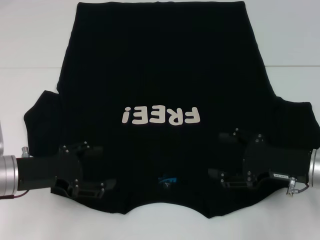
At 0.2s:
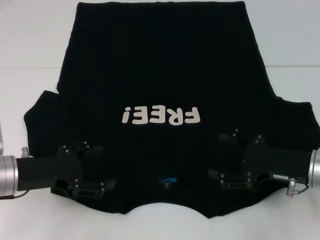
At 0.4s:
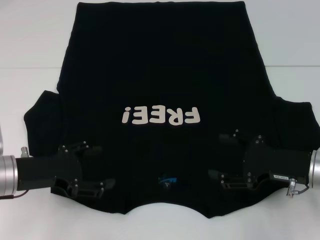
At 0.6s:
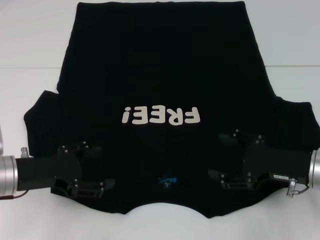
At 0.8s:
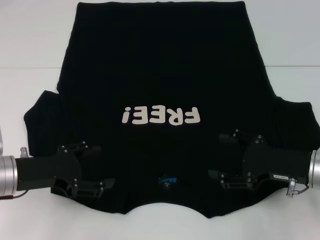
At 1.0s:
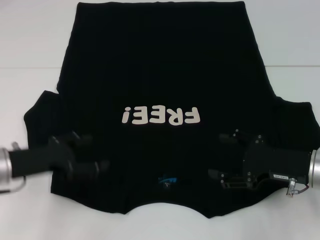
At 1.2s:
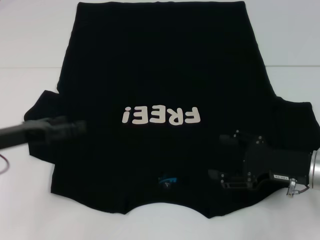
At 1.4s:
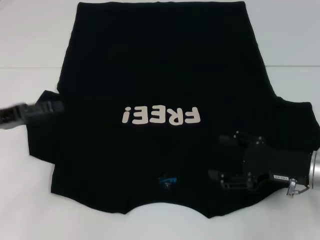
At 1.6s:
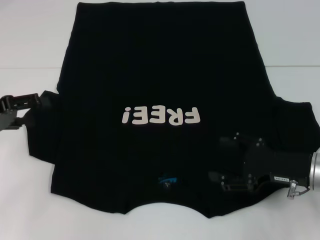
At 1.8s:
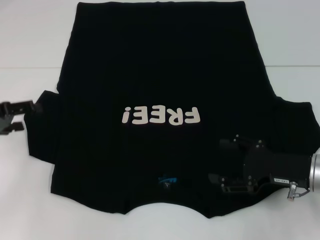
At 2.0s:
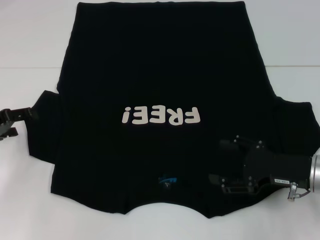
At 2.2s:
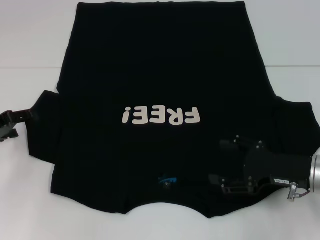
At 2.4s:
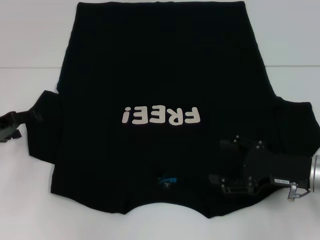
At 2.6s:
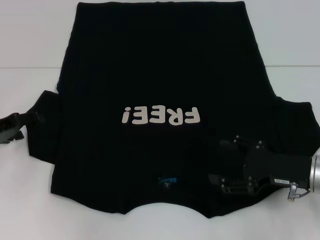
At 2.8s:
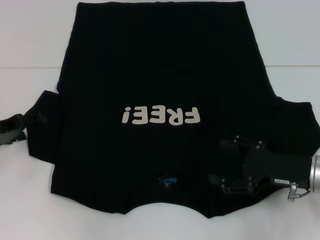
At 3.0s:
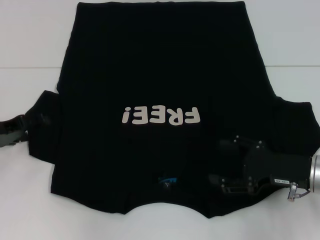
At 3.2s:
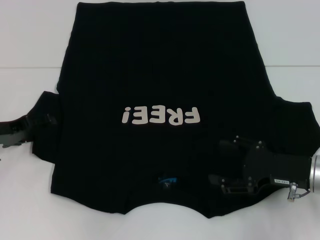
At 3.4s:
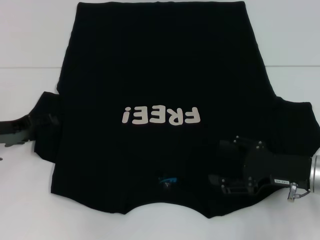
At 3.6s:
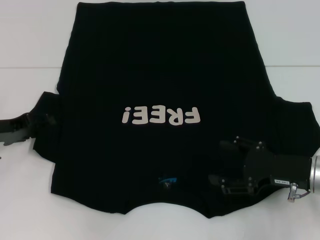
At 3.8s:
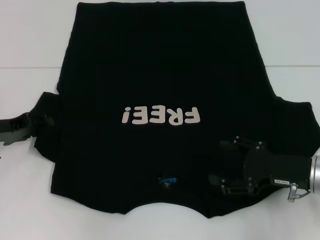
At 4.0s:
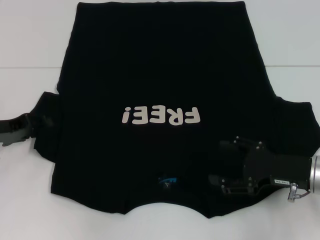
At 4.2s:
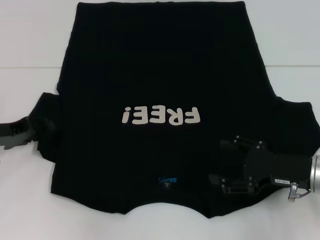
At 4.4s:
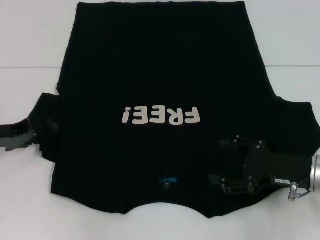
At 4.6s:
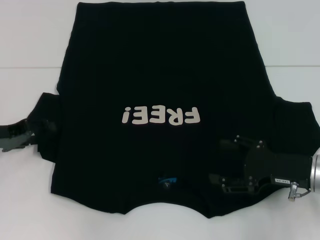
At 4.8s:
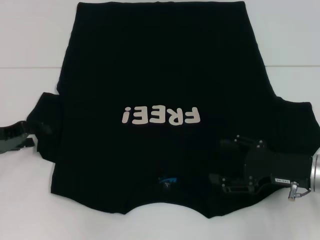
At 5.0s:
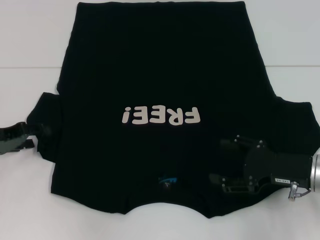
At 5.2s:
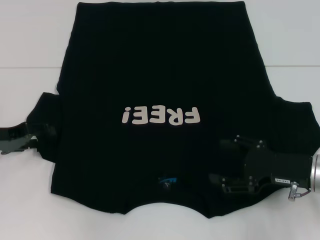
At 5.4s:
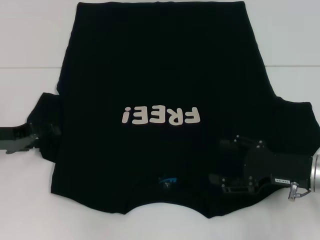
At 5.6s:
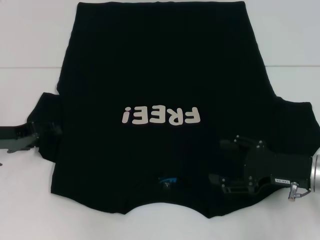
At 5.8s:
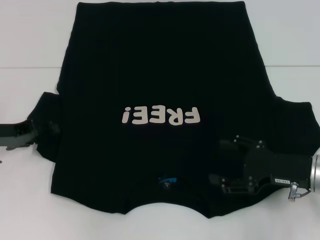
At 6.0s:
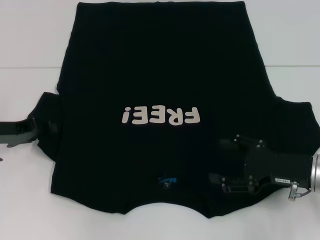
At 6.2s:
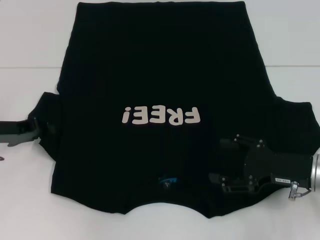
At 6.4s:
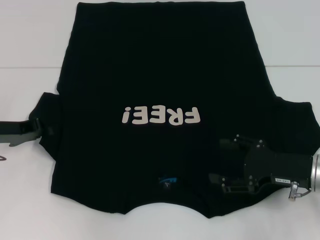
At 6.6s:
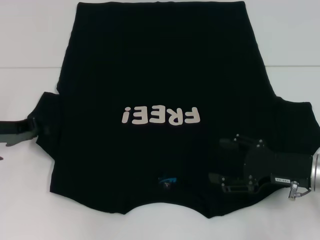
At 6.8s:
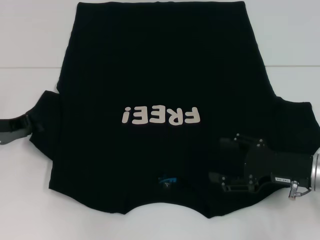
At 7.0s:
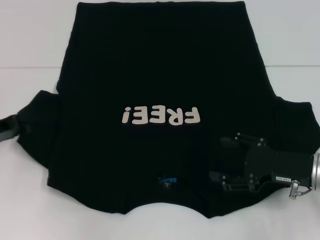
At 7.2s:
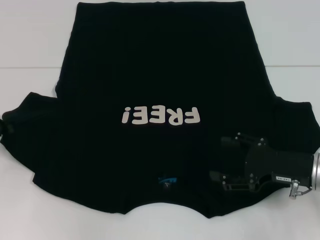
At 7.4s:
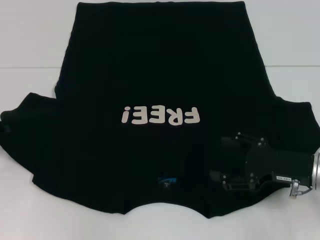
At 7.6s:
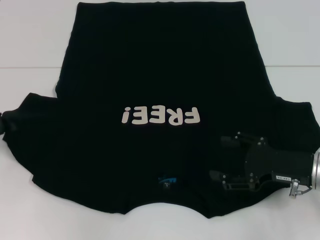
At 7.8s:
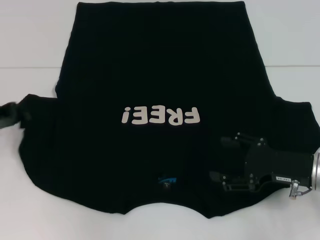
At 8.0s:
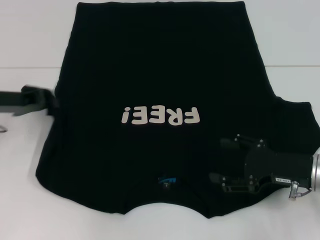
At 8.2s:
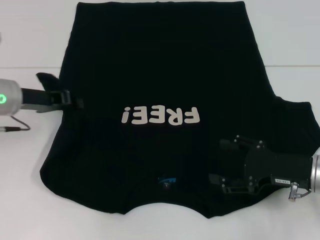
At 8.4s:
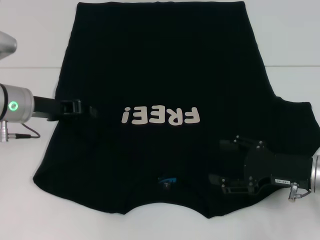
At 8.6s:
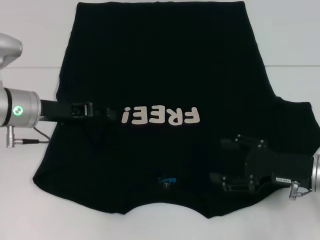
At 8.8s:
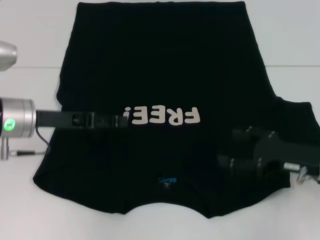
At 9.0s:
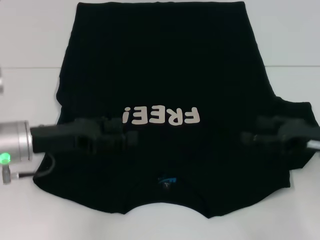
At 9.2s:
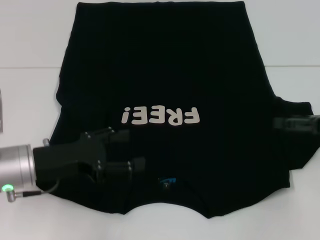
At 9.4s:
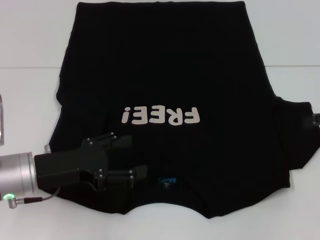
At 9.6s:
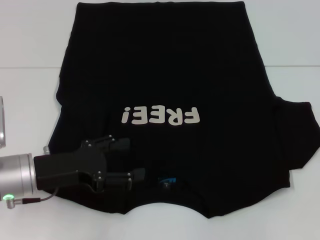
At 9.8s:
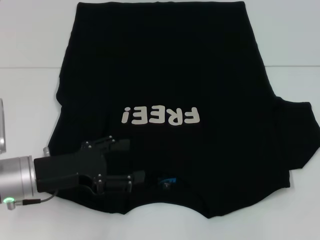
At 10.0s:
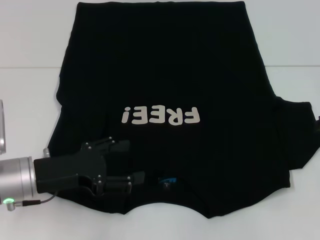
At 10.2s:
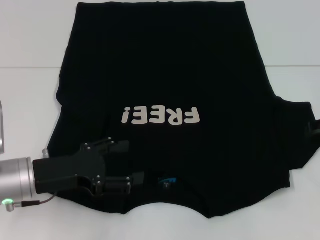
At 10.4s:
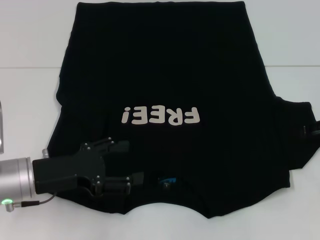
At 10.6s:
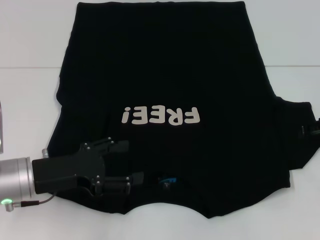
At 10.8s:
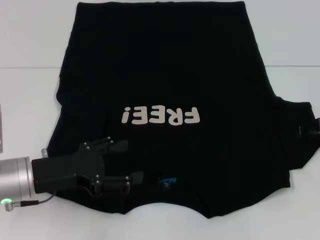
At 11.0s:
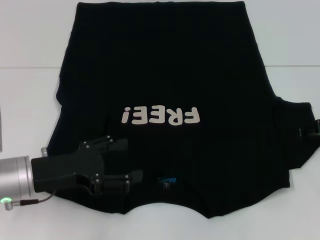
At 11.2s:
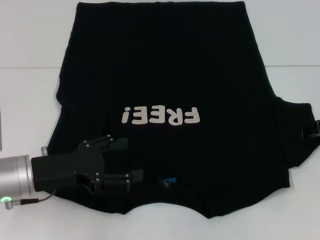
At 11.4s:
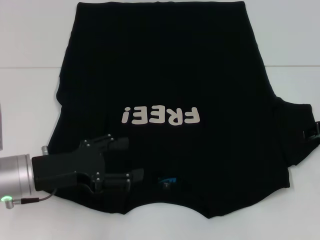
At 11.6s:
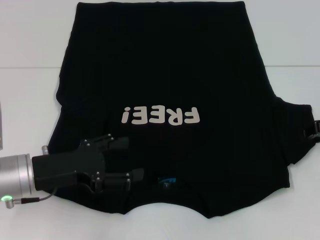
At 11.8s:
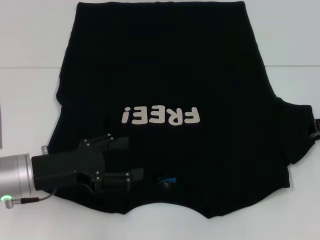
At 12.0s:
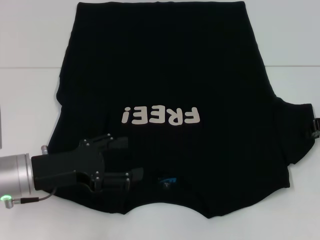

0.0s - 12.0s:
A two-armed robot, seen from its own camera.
Step, 0.0s - 9.4s: Fold the bottom left sleeve with your left hand.
0.0s - 1.6s: The left gripper goes some 10 cm to the left and upward.
1.6s - 3.0s: The left gripper shifts some 5 cm downward.
3.0s - 4.4s: There are only small adjustments of the grippers.
4.4s - 6.0s: Neither gripper changes place.
6.0s - 7.6s: The left gripper closes up.
7.6s - 9.0s: The left gripper travels to the right by about 15 cm, and opens its fingers; the right gripper shifts by some 5 cm.
9.0s - 10.4s: The right gripper is displaced forward by approximately 5 cm. The left gripper changes place by approximately 5 cm.
10.4s - 12.0s: The right gripper closes.

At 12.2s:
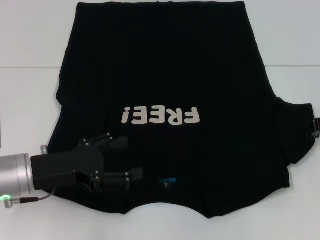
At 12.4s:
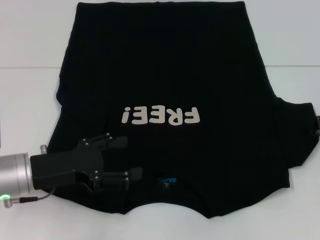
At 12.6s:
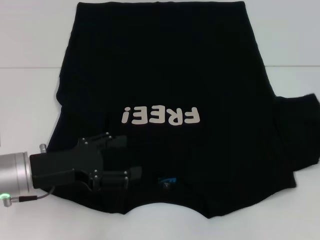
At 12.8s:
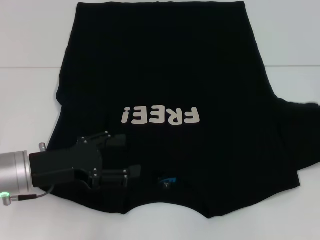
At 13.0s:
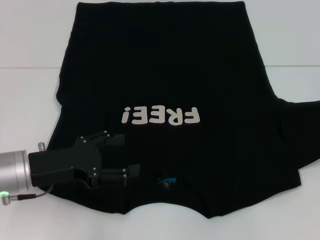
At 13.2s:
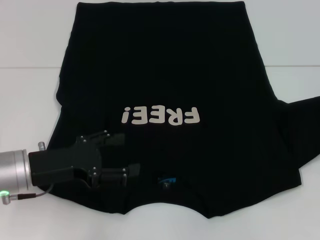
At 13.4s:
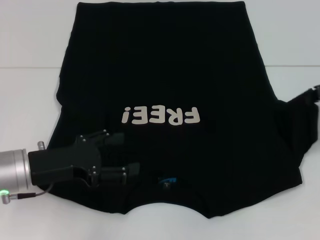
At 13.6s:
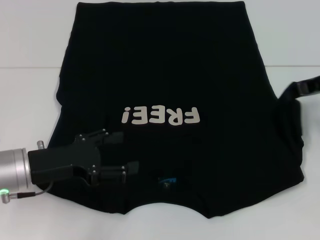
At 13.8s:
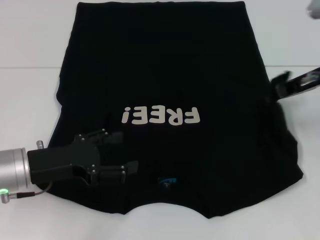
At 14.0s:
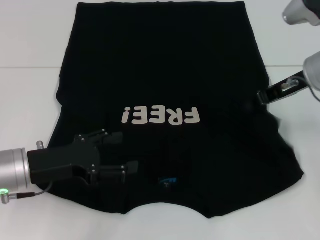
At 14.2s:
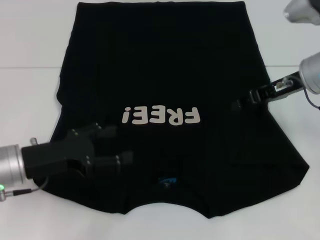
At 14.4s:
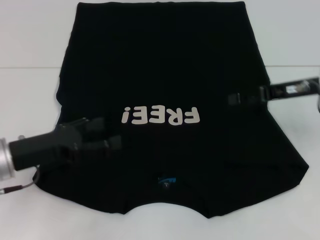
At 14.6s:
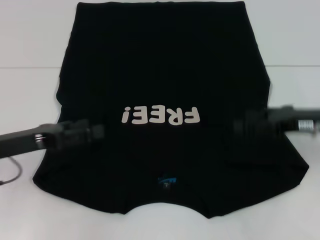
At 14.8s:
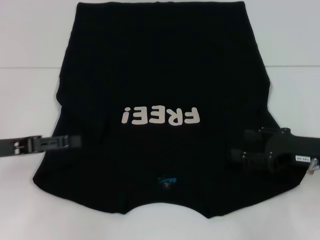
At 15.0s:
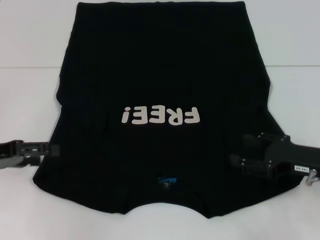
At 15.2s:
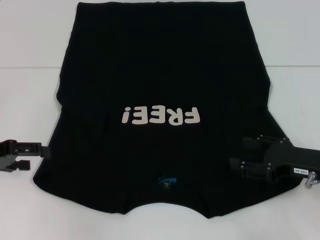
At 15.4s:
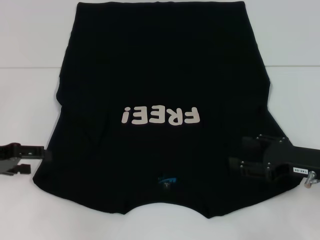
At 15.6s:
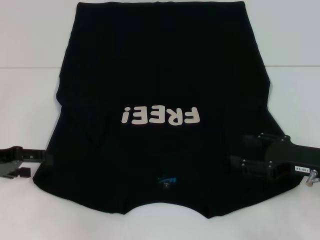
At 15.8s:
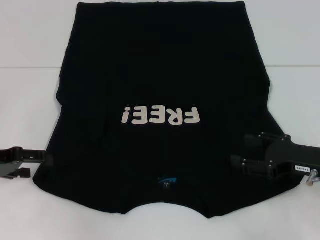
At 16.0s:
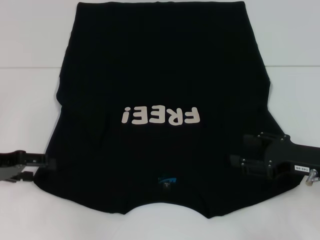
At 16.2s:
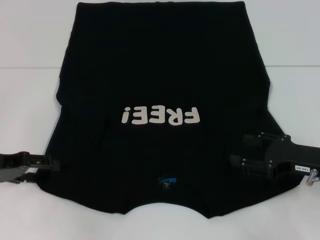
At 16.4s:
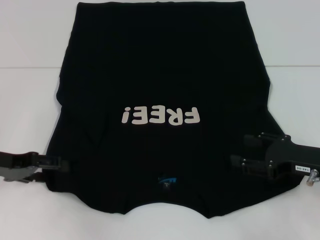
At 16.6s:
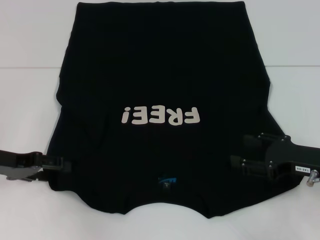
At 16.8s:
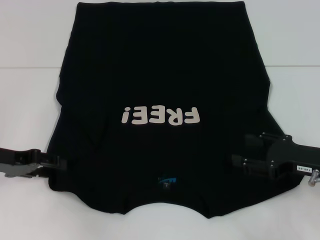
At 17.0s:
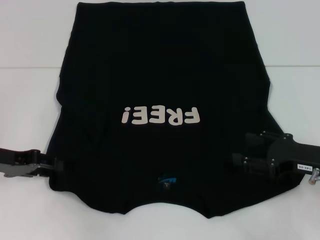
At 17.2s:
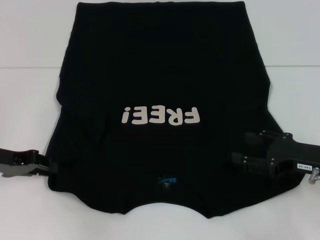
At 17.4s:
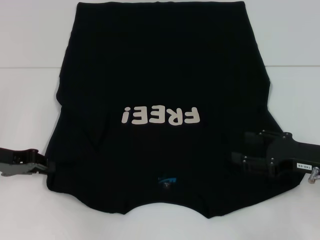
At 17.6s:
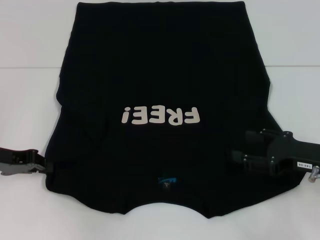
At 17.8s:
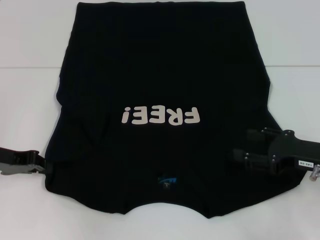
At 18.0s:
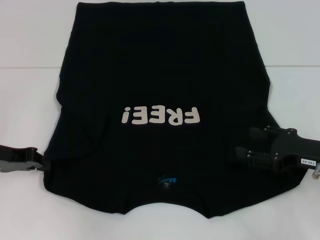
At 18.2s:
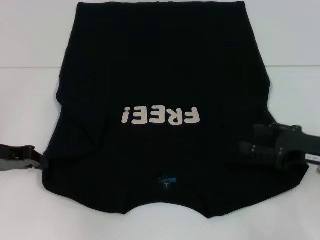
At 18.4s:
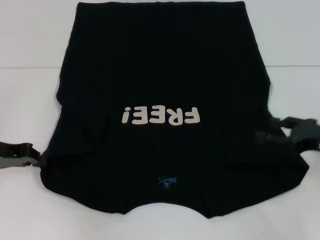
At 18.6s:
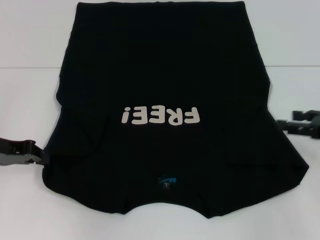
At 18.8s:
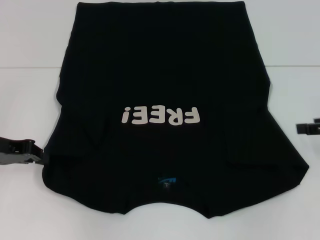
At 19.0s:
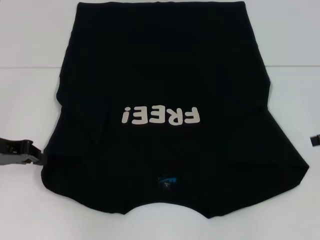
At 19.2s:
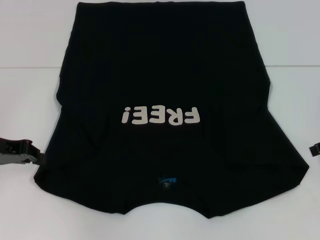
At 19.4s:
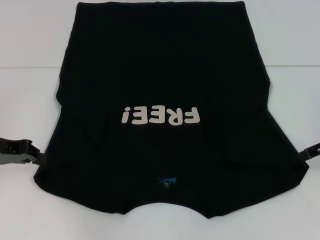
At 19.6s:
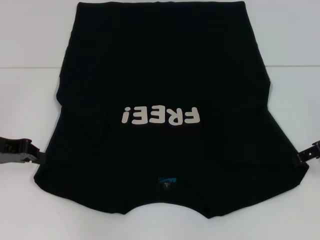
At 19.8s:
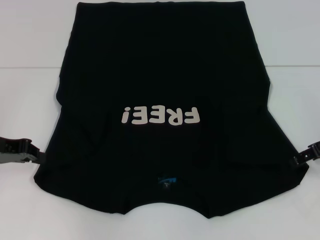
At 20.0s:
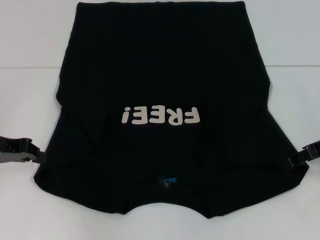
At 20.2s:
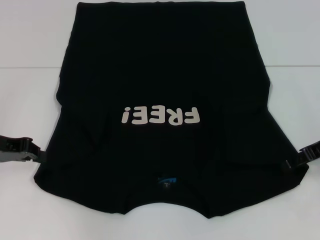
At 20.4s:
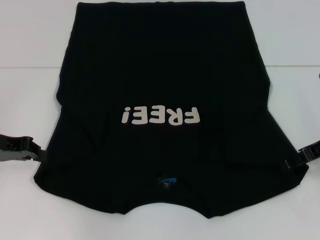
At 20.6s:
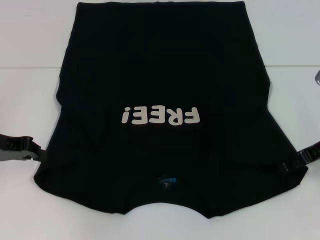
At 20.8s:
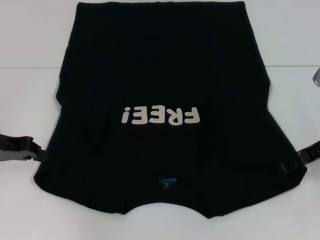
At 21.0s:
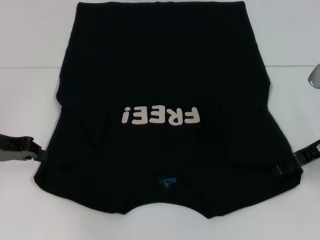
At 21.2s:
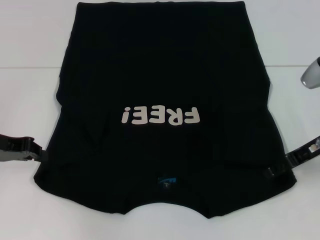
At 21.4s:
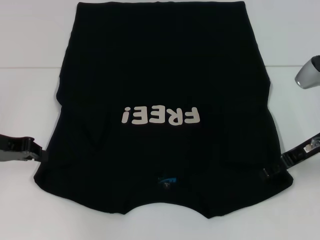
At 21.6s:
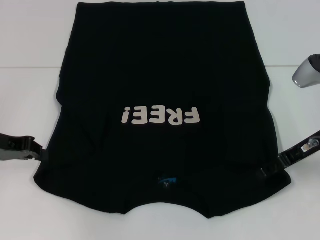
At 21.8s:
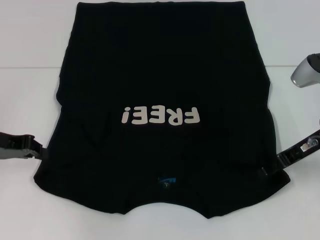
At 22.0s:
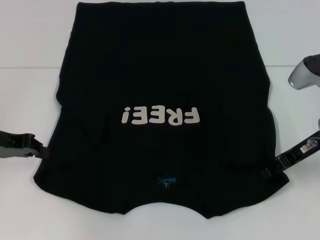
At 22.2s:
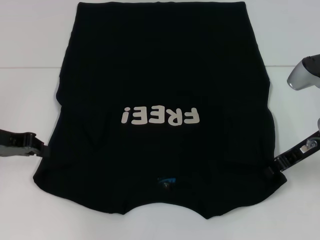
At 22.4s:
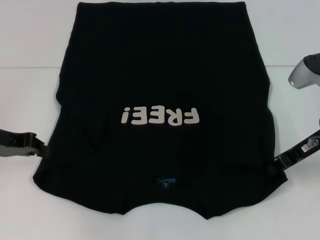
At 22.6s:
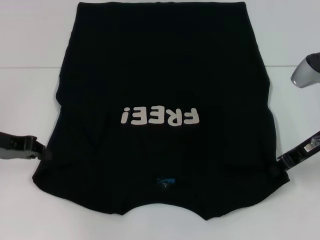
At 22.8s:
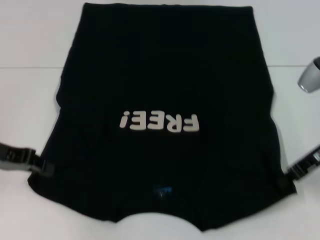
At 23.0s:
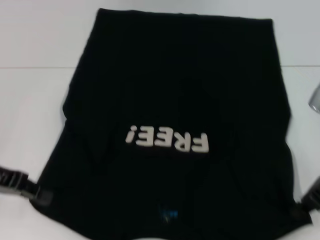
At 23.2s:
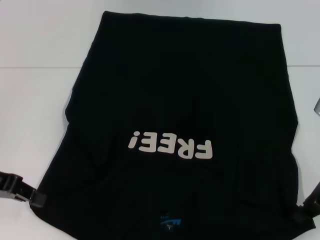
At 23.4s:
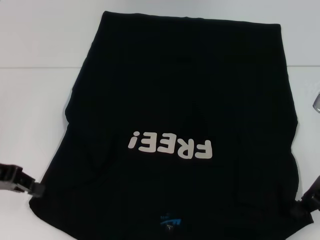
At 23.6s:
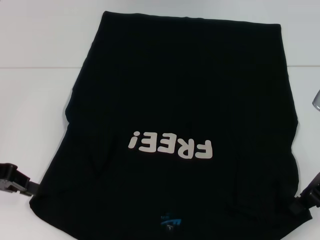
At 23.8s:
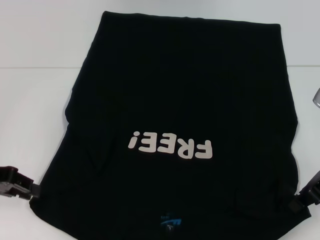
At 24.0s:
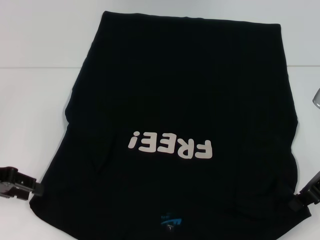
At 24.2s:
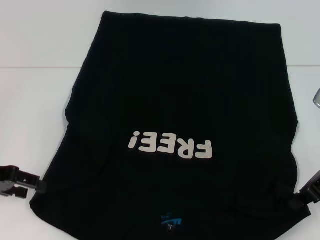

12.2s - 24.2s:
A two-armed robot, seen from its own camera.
Step, 12.2s - 14.4s: Fold the bottom right sleeve with your right hand.
Step, 14.6s - 21.6s: Grab the bottom left corner with your left hand.
Step, 14.6s - 21.6s: Grab the bottom right corner with your right hand.
12.2s - 13.8s: The right gripper is displaced to the left and upward by roughly 10 cm.
13.8s - 15.2s: The left gripper heads to the left, covering about 10 cm. Meanwhile the right gripper moves backward and downward, about 15 cm, and opens.
15.2s - 16.6s: There are only small adjustments of the grippers.
16.6s - 18.2s: The left gripper closes its fingers.
18.2s - 19.8s: The right gripper moves forward and upward, about 10 cm.
19.8s - 21.2s: The grippers make only small movements.
21.2s - 22.6s: The right gripper closes its fingers.
22.6s - 24.2s: The left gripper opens.
